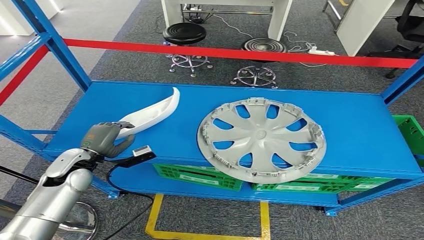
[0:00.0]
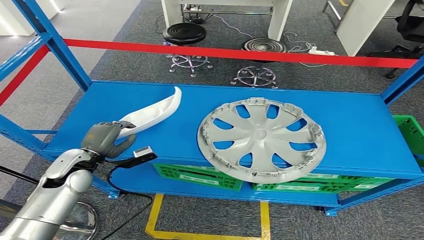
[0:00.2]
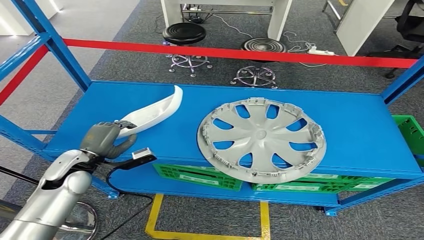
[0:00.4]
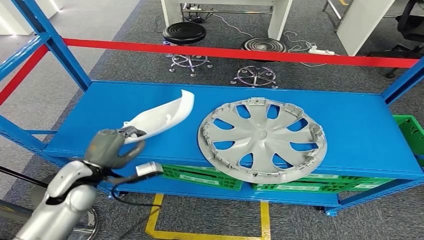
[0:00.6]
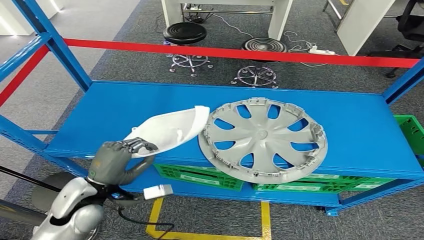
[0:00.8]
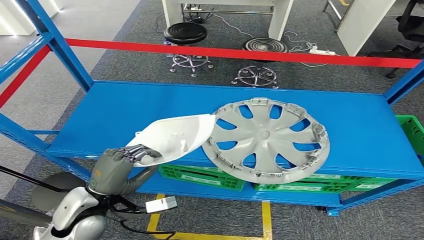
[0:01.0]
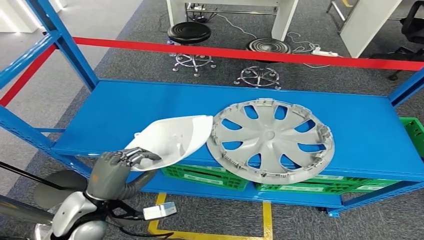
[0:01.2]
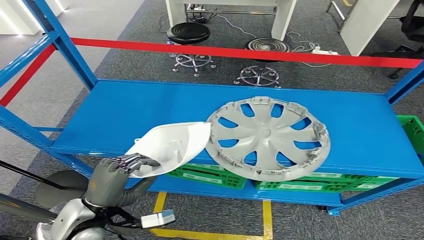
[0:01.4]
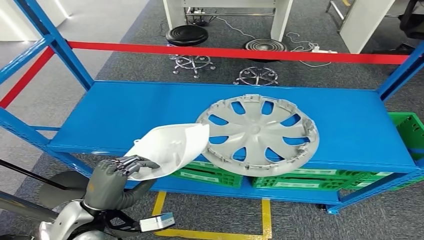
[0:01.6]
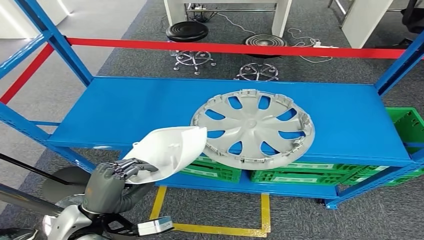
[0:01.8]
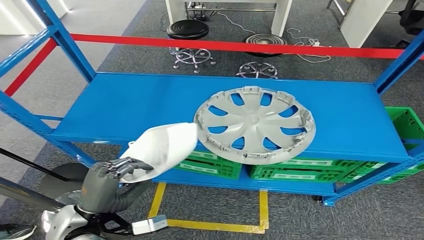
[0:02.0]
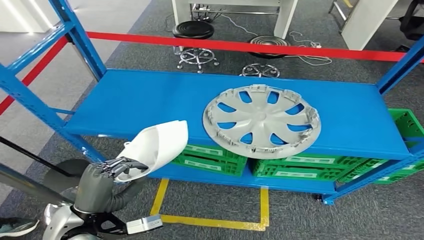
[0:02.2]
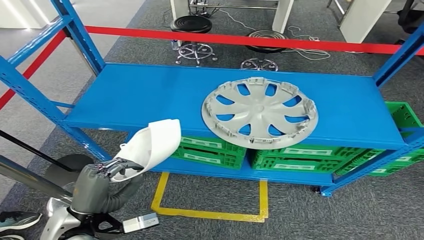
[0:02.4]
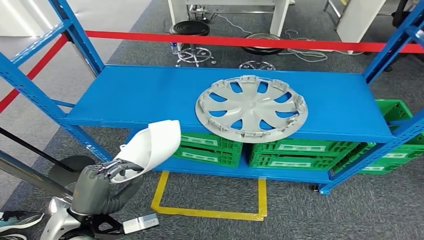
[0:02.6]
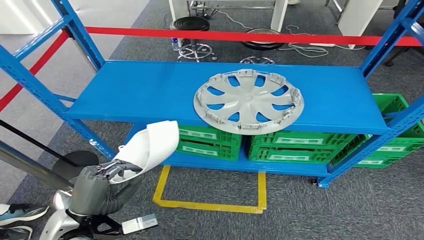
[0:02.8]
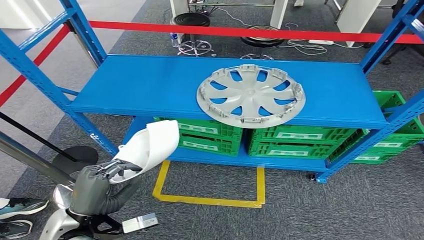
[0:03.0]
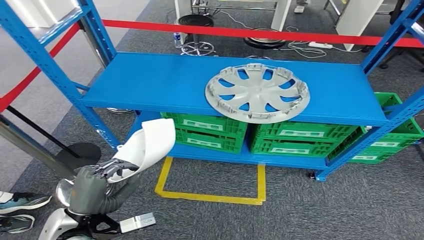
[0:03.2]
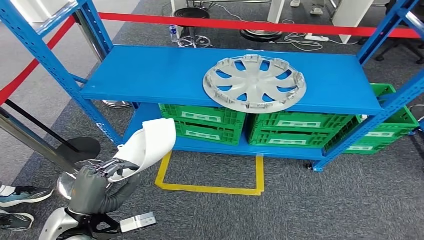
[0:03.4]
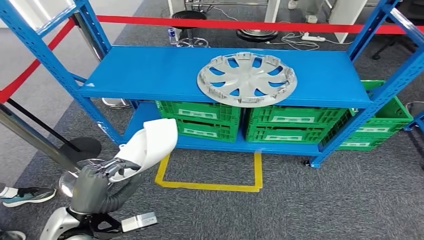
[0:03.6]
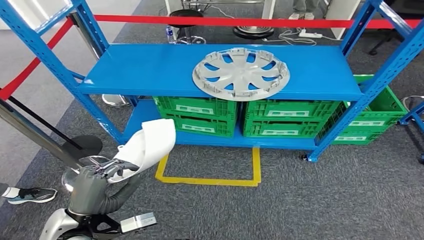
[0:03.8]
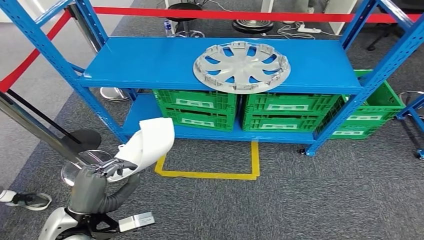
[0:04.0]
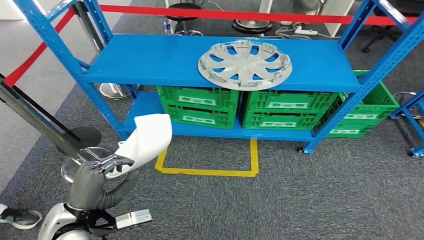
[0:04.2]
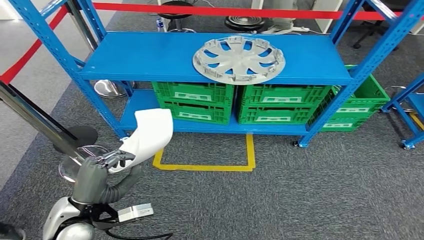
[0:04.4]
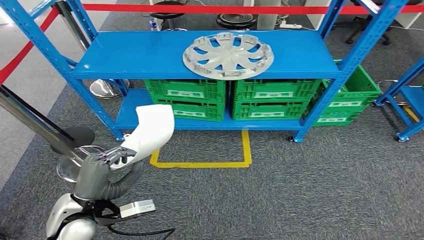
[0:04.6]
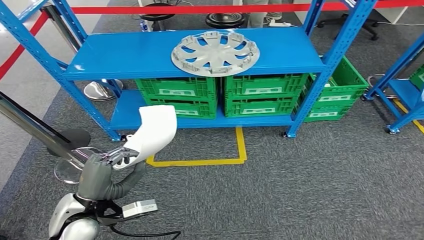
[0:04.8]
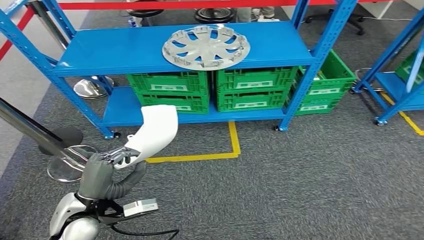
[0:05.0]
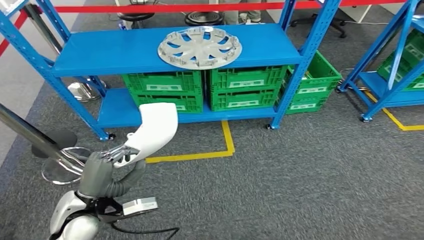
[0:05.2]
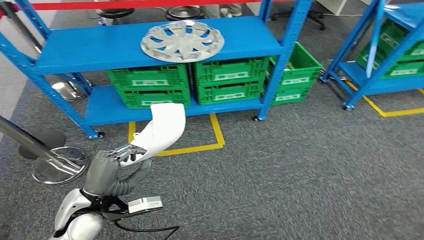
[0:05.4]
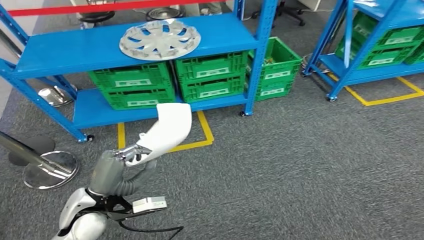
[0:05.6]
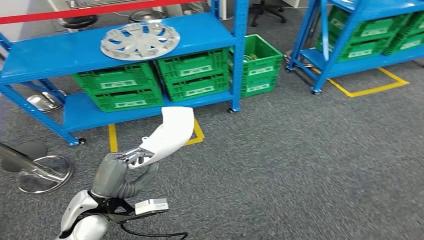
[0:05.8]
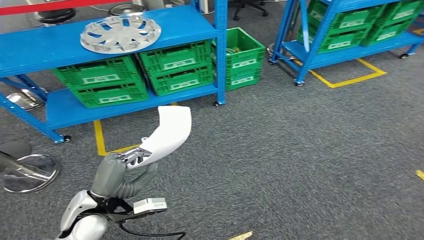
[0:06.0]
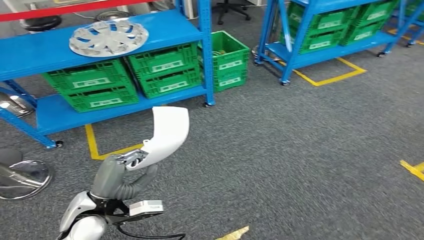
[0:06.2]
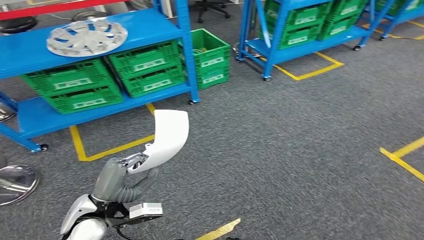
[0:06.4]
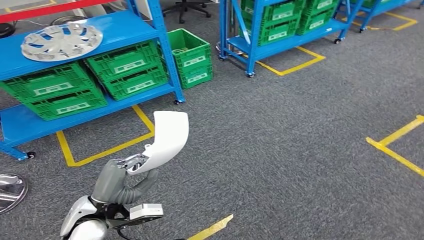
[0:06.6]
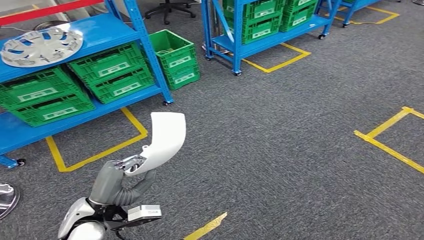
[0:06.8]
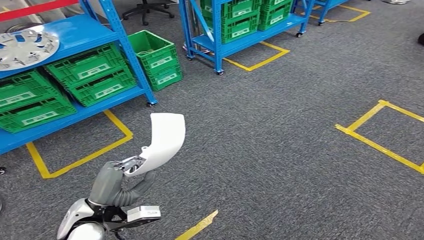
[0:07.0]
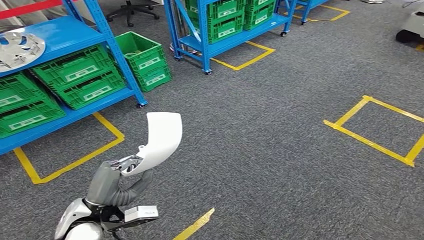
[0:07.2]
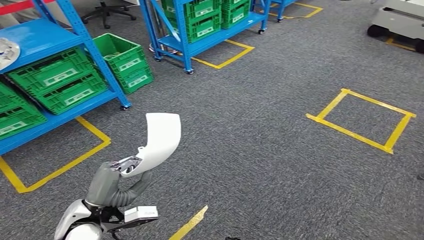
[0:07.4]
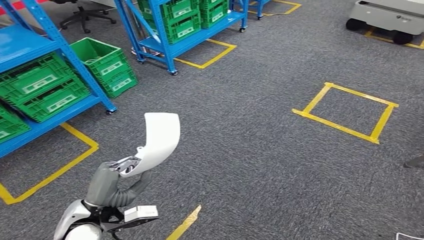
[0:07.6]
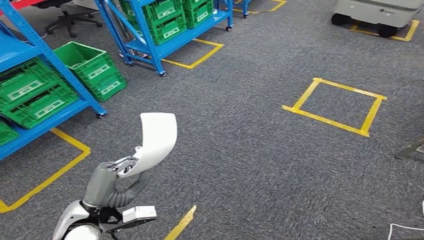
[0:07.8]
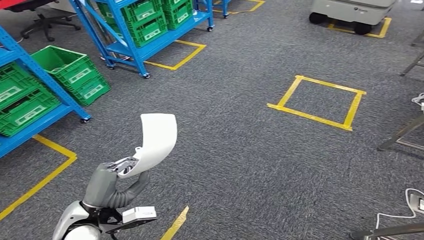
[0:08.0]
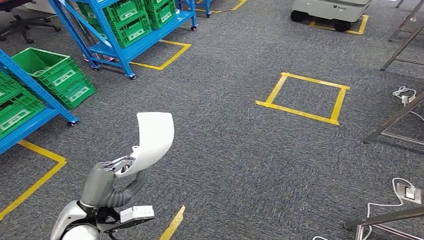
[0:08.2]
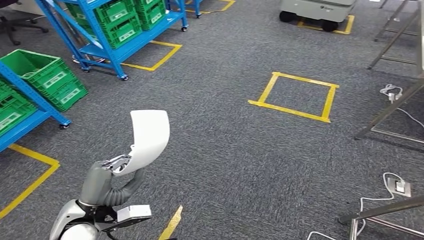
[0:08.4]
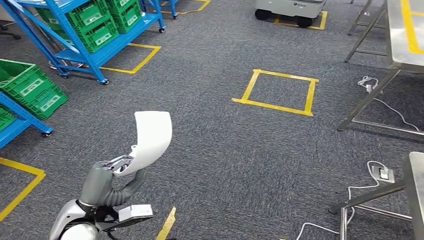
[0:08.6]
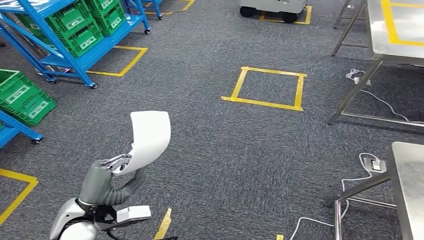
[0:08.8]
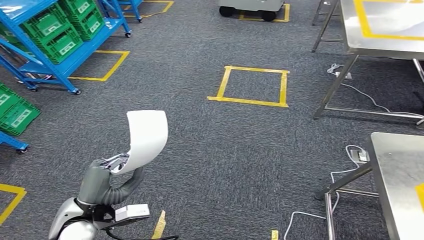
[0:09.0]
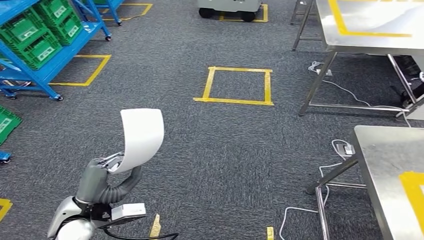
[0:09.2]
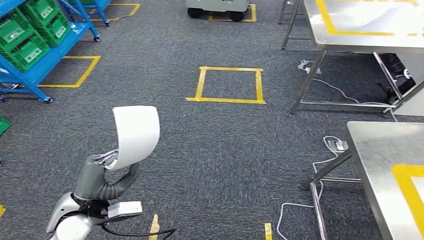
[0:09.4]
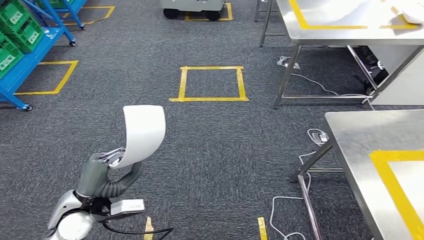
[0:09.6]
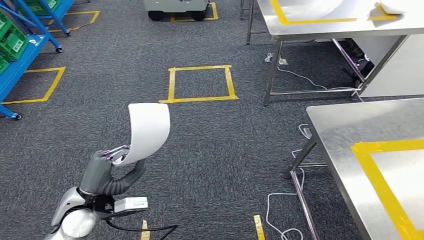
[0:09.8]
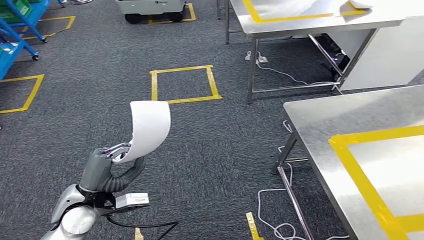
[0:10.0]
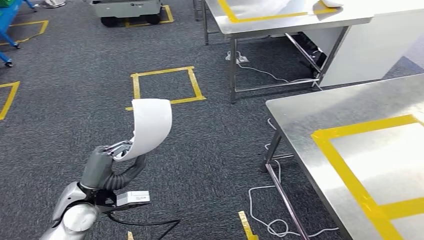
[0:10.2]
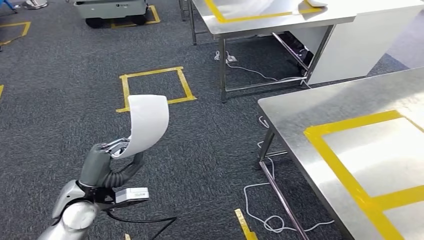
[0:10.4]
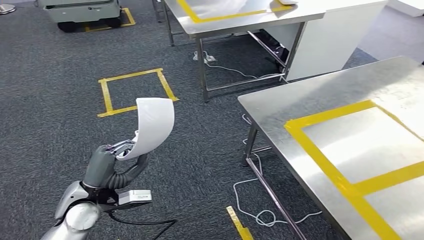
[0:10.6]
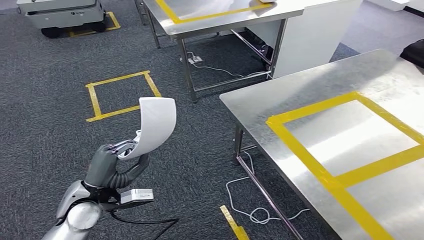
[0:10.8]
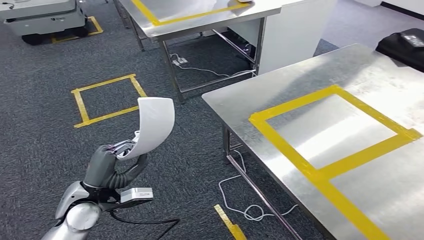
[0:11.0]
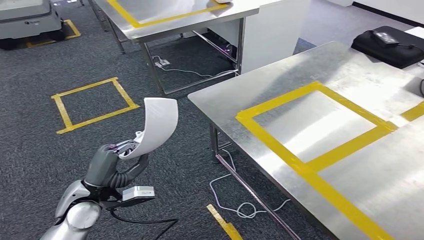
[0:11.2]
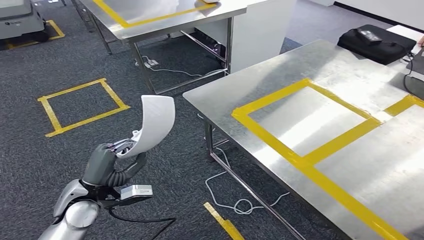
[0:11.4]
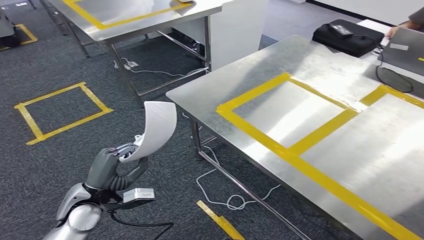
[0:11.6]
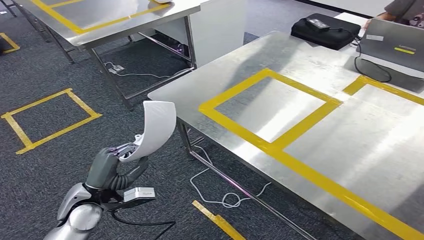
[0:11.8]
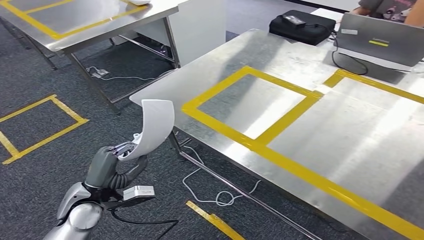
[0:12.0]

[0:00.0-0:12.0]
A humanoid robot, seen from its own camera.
Step, 0:00.0 to 0:02.2: Pick up the small component from the shelf.

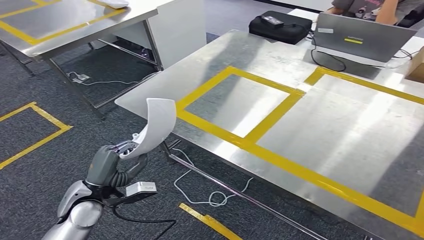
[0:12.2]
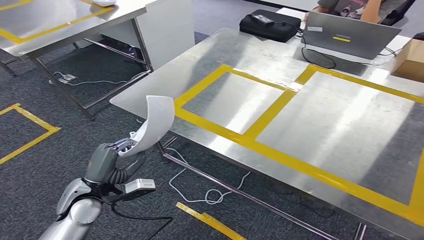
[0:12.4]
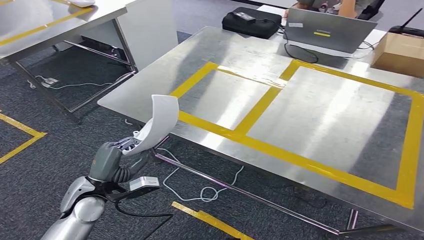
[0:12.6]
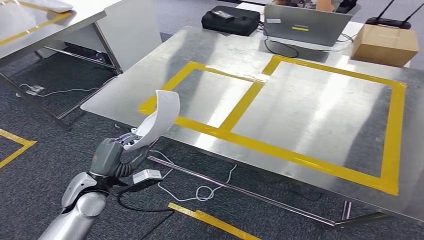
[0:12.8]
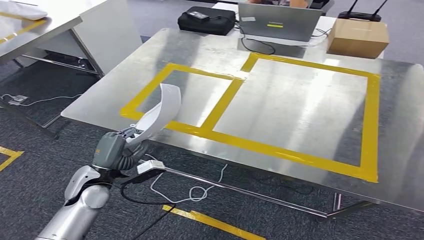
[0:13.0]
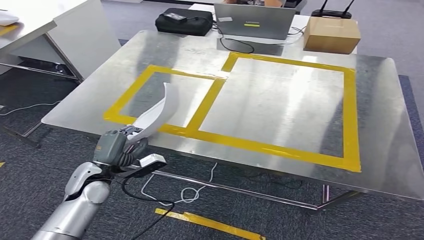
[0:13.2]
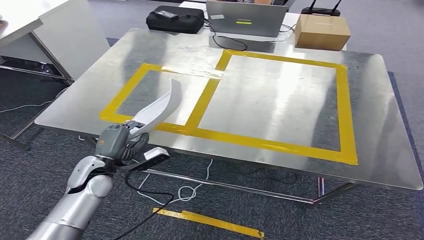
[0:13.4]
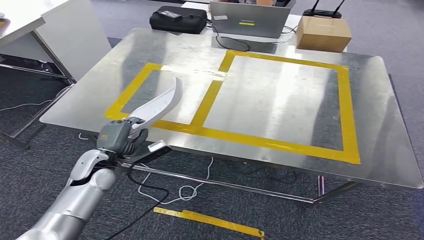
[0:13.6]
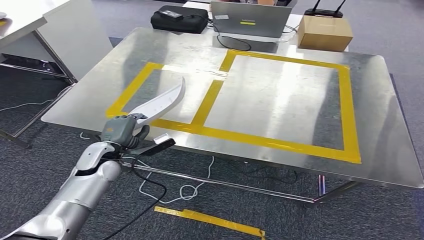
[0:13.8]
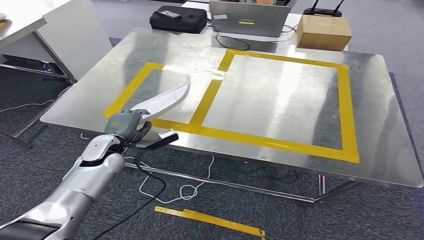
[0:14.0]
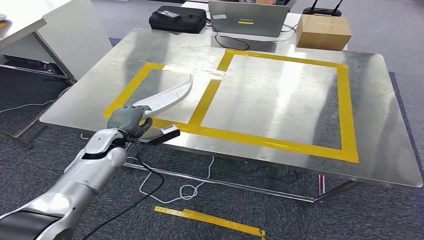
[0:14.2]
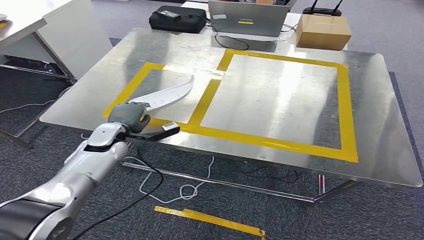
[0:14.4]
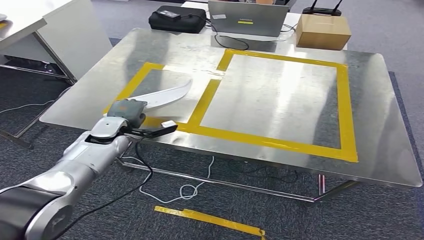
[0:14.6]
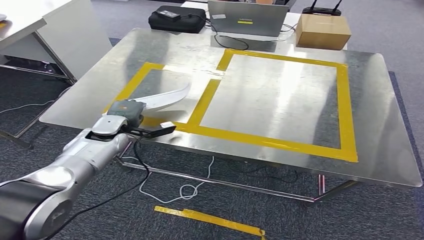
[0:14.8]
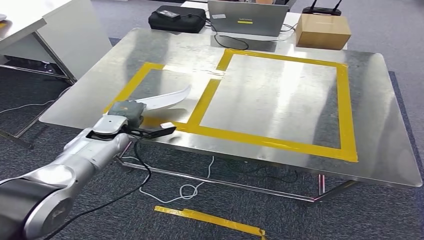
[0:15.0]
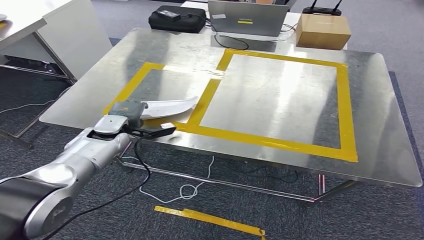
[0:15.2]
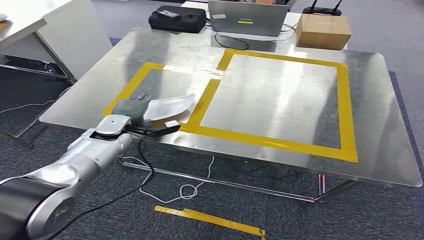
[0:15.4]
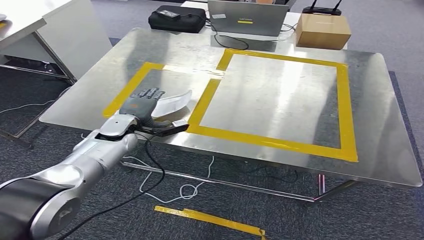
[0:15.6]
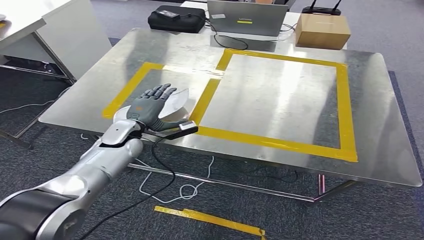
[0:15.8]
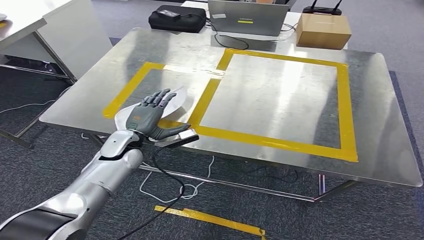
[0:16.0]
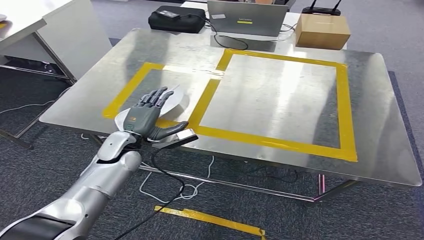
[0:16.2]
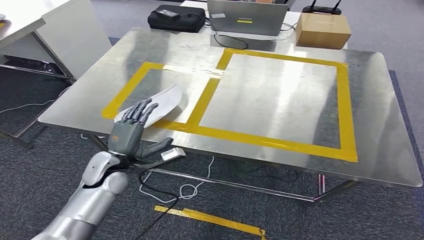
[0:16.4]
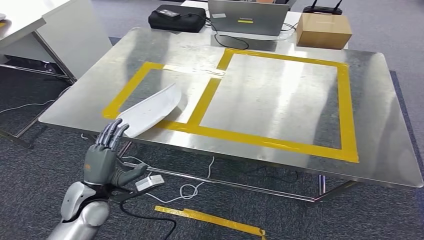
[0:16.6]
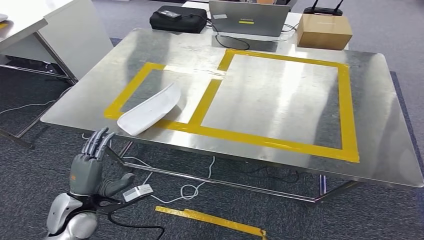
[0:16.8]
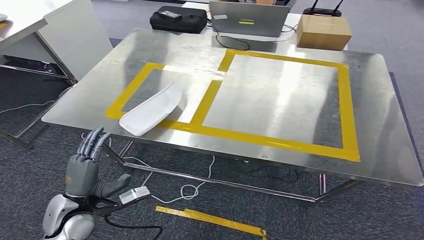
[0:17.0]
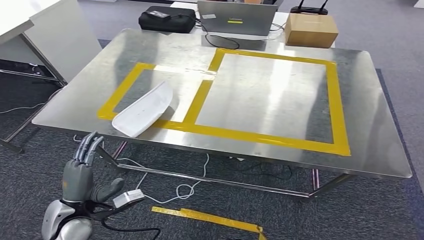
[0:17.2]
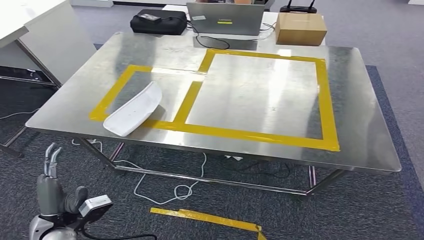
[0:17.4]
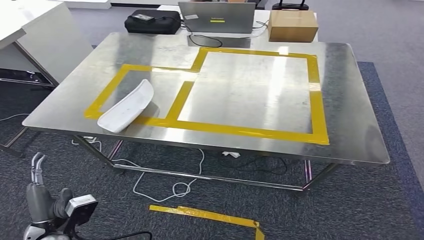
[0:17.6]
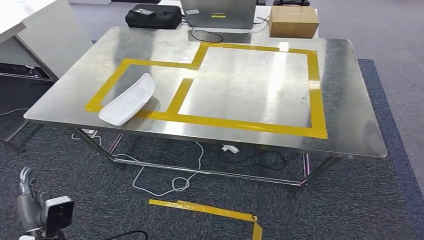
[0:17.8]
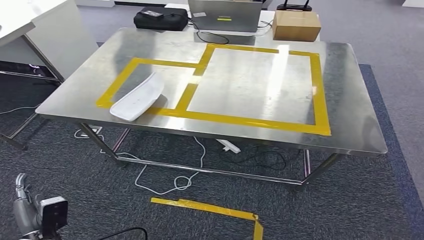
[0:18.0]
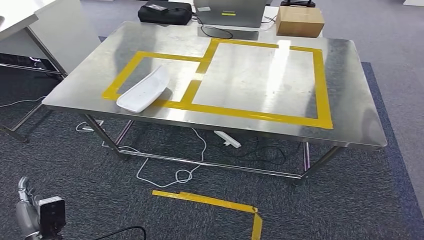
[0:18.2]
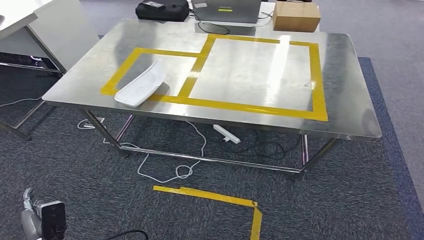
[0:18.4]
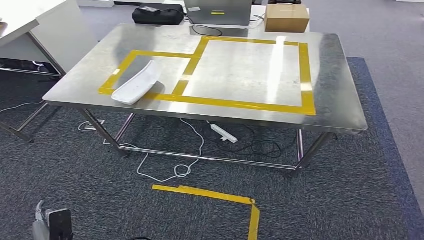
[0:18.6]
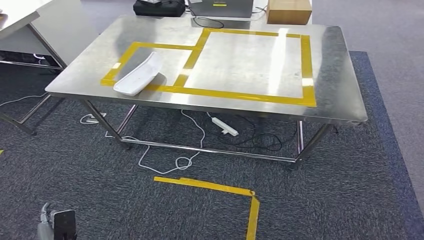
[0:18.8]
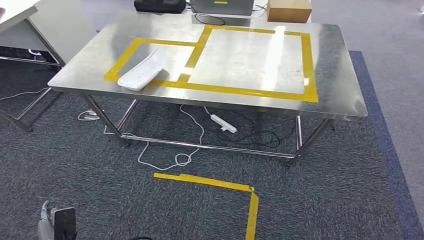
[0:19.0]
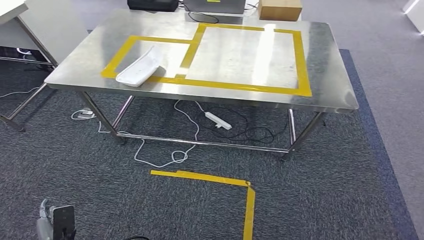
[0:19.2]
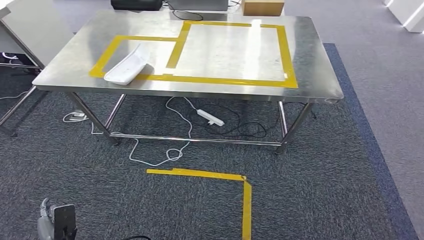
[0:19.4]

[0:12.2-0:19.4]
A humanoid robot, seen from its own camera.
0:13.6 to 0:15.0: The left hand travels forward by approximately 10 cm.
0:15.0 to 0:16.6: The left hand goes about 20 cm backward.
